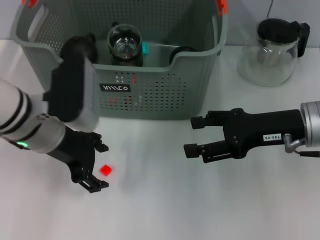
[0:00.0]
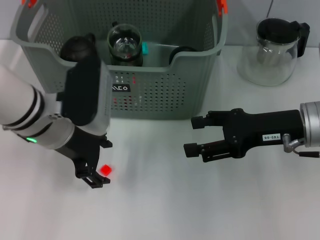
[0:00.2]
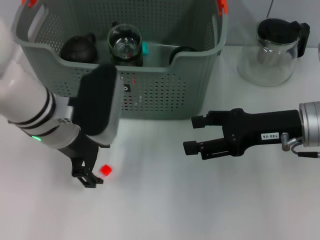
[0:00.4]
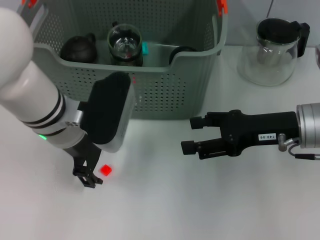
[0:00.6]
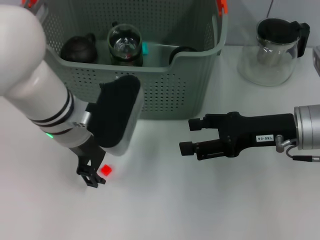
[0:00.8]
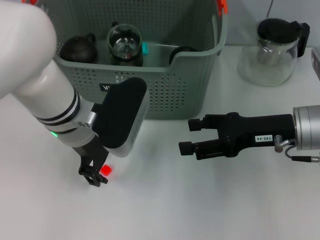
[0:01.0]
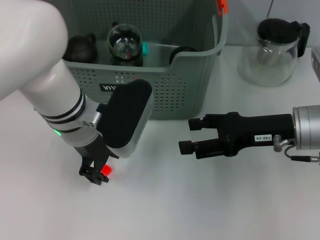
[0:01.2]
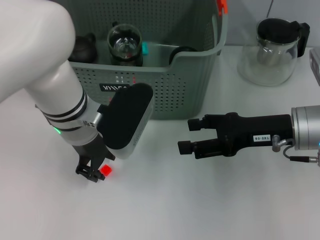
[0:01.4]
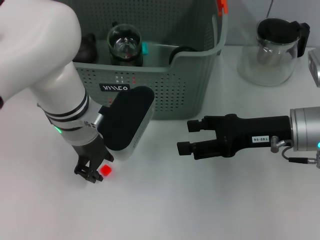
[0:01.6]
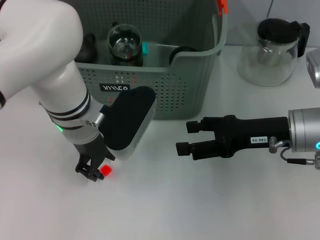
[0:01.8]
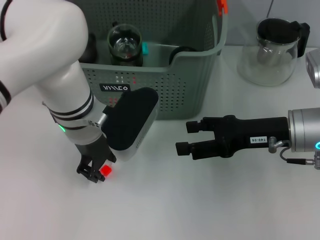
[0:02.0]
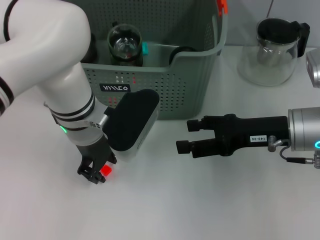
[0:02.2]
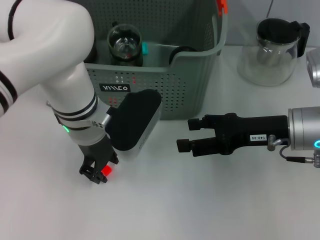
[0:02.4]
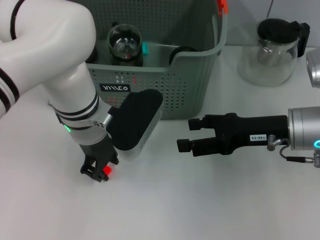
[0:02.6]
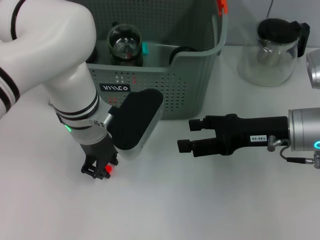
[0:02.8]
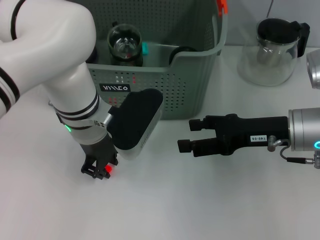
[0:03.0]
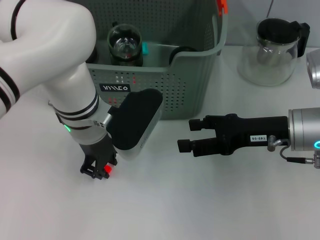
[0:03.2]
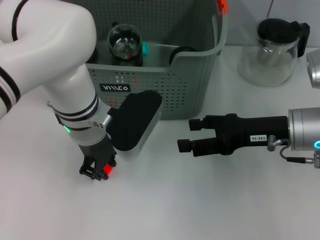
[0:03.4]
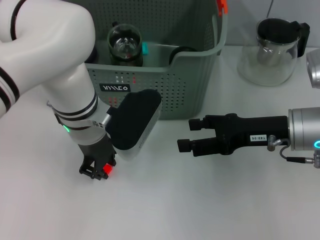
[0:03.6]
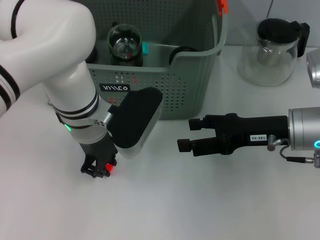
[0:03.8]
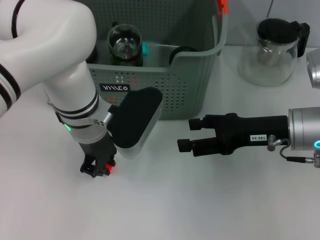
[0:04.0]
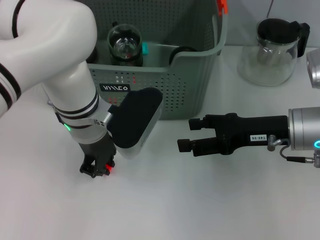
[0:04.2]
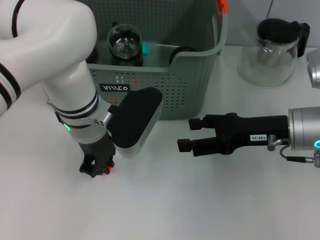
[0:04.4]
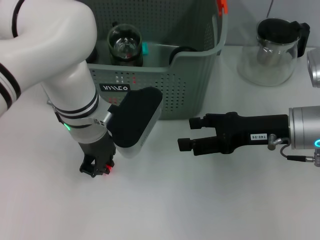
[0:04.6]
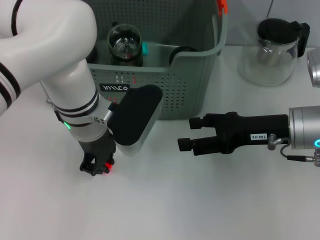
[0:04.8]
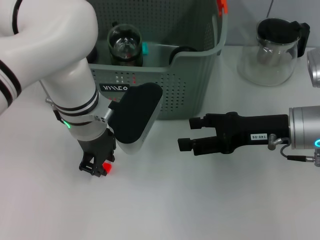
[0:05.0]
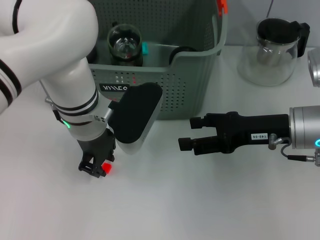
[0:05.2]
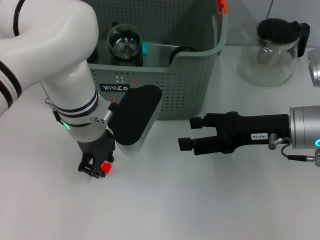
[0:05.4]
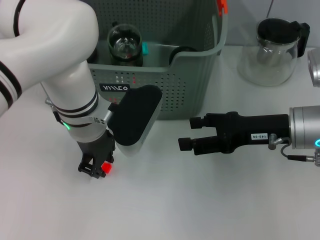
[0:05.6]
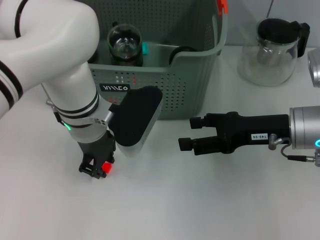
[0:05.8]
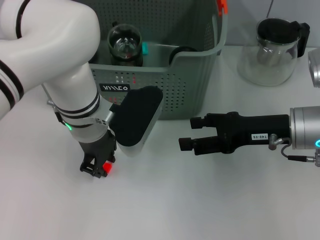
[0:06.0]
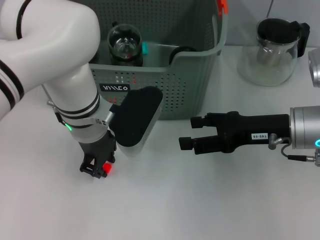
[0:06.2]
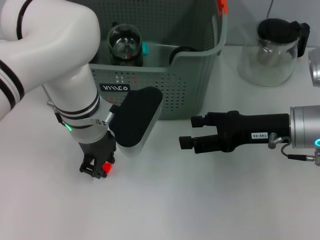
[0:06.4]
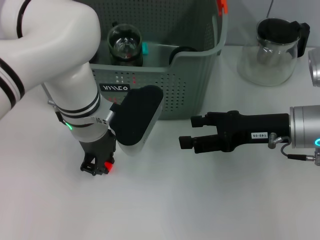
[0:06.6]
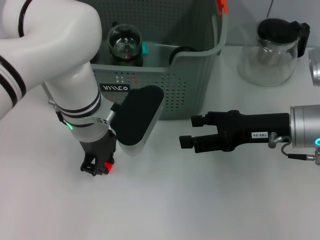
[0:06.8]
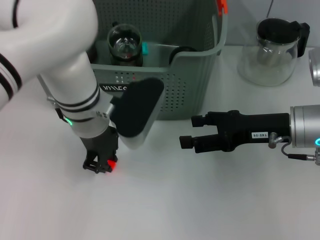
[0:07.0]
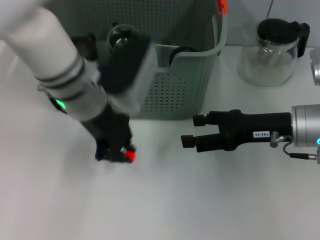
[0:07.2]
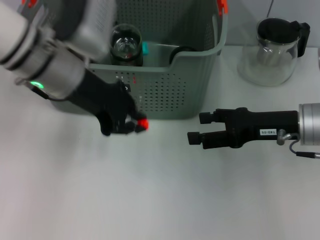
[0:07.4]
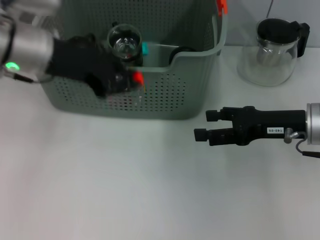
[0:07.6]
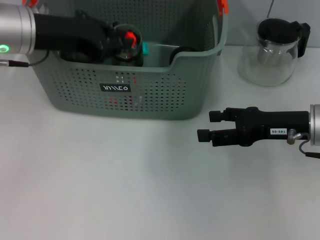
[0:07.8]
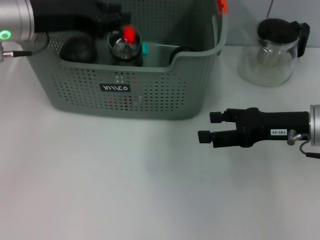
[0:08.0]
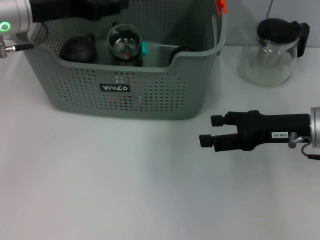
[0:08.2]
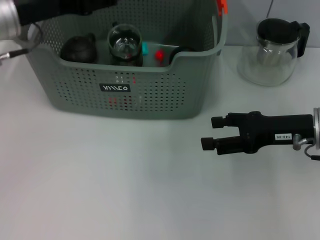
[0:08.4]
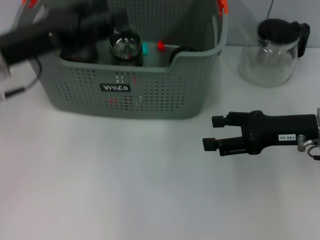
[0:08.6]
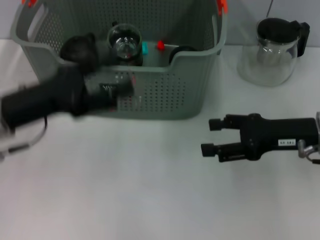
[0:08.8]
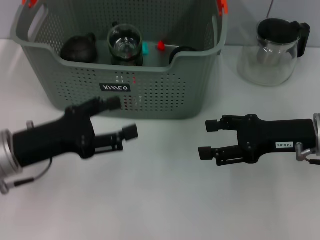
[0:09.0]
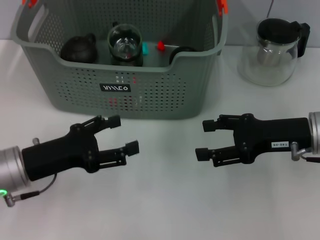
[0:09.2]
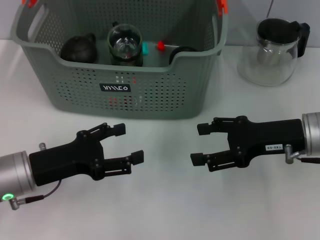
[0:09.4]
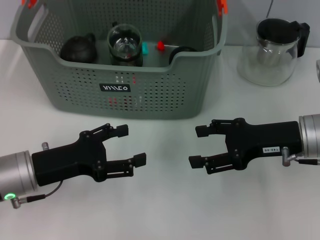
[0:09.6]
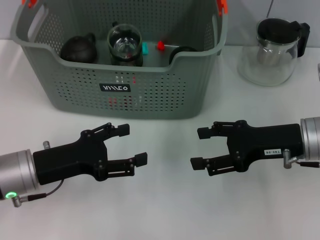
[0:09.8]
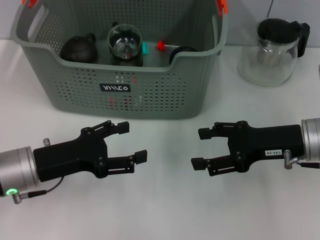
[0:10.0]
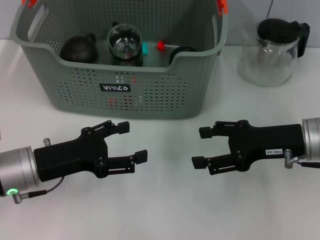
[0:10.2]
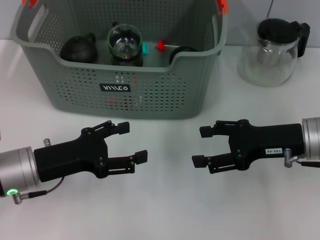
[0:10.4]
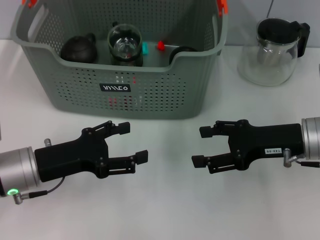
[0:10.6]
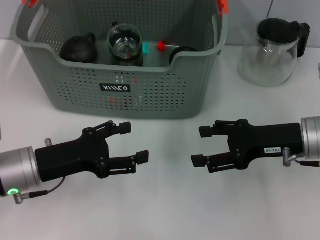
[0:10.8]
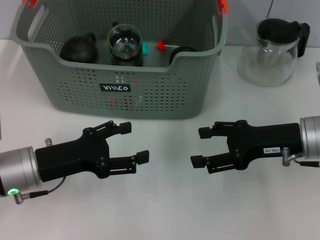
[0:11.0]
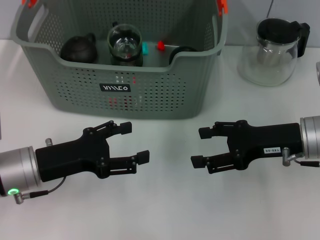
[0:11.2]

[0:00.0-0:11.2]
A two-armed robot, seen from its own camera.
Task of the whole recording: pick up the teacup on the table and place it into the storage bin, pick up the block on the table and place it into the storage bin.
Step, 0:00.0 to 0:03.2: Grasp the orange block with left gripper.
Step, 0:03.4 to 0:08.2: Place the orange block in the storage box with left gripper.
0:00.0 to 0:01.6: The left gripper moves to the right, approximately 5 cm, and closes.
0:01.6 to 0:03.2: The grippers move only a little.
0:03.2 to 0:06.4: Both grippers stay put.
0:06.4 to 0:08.0: The left gripper goes roughly 15 cm to the left and upward.
0:08.0 to 0:09.6: The left gripper shifts roughly 20 cm downward and backward, and opens up.
0:09.6 to 0:11.2: Both grippers stay put.
